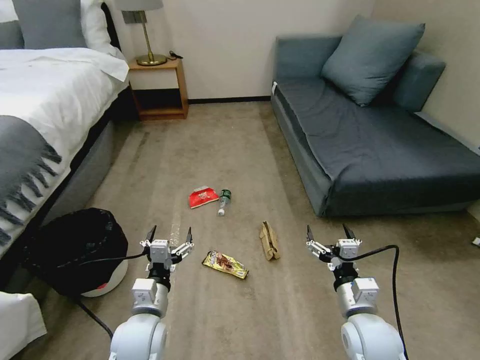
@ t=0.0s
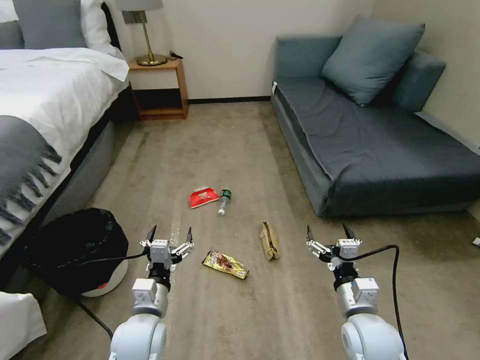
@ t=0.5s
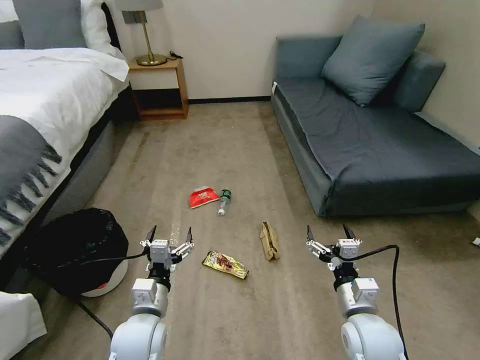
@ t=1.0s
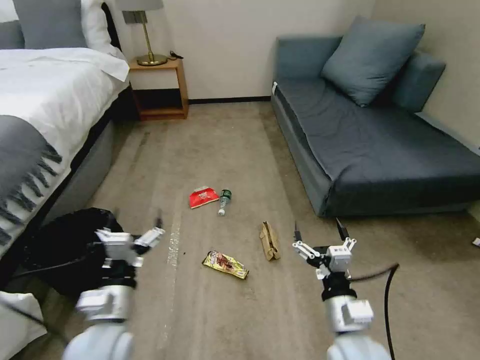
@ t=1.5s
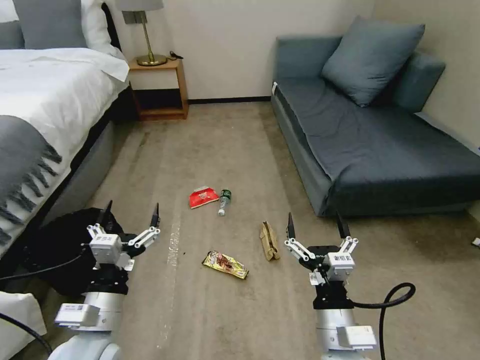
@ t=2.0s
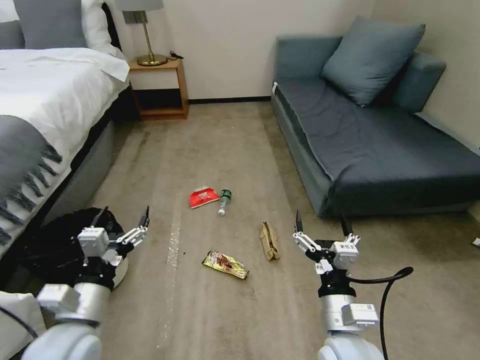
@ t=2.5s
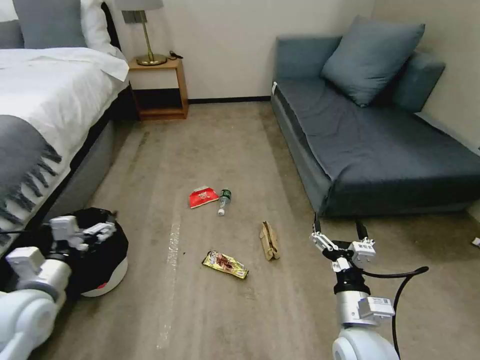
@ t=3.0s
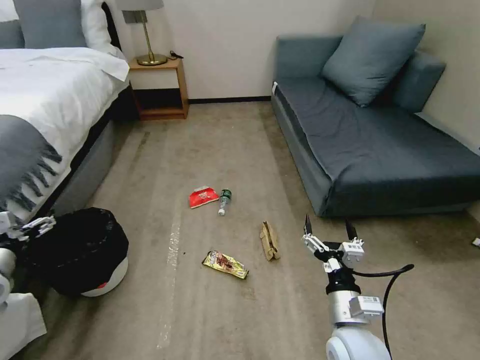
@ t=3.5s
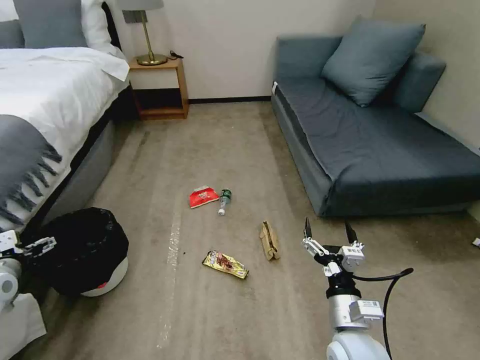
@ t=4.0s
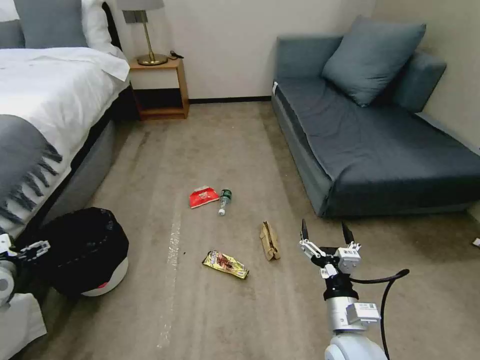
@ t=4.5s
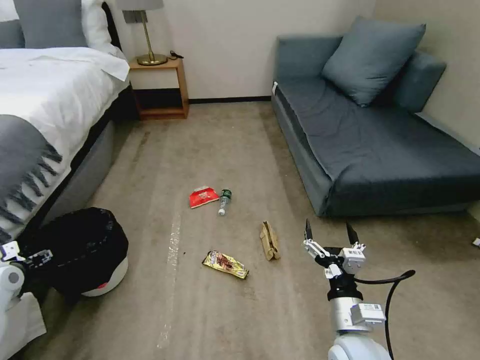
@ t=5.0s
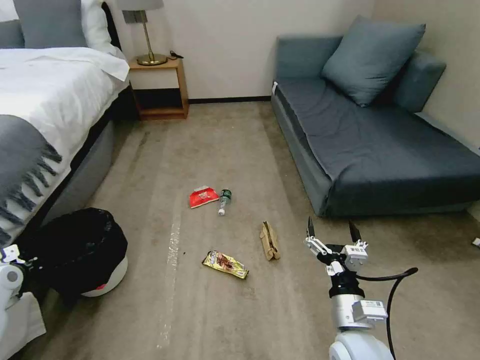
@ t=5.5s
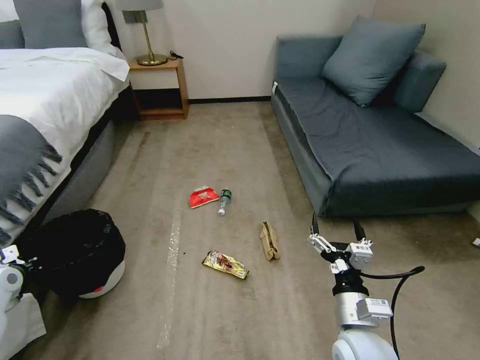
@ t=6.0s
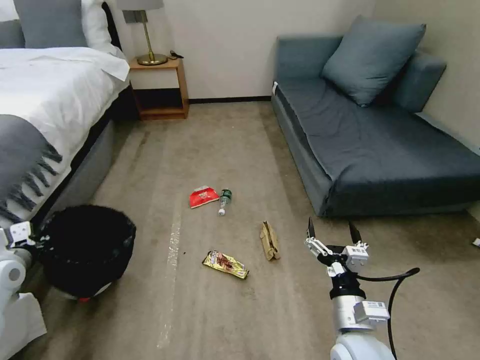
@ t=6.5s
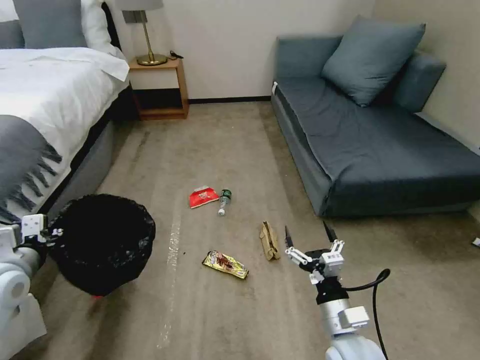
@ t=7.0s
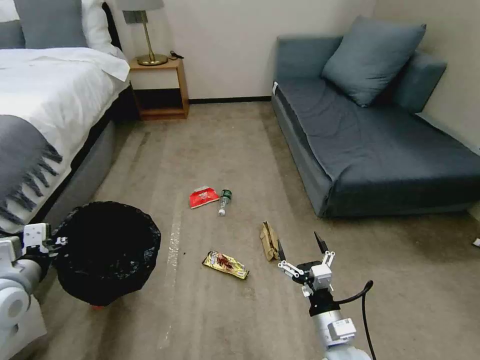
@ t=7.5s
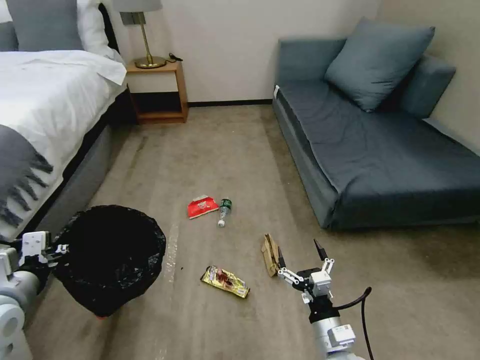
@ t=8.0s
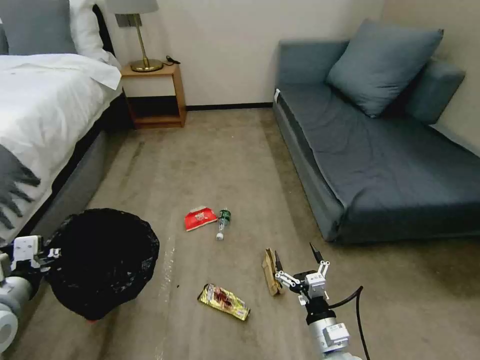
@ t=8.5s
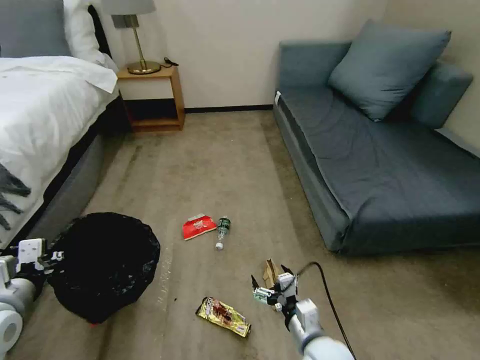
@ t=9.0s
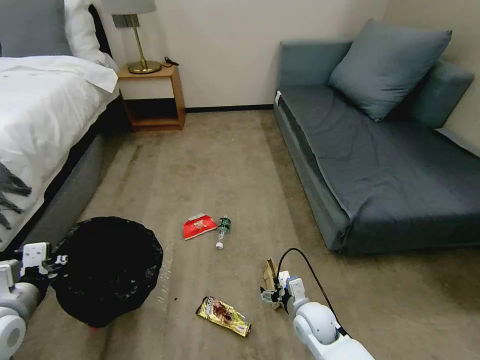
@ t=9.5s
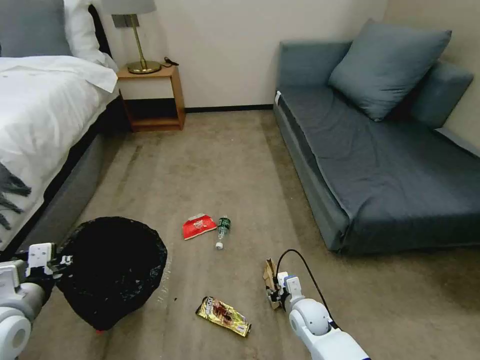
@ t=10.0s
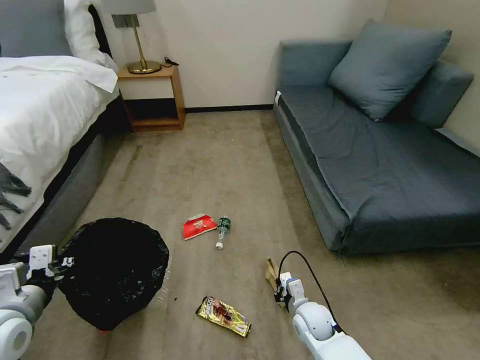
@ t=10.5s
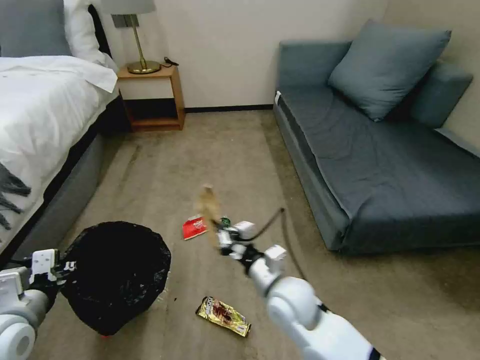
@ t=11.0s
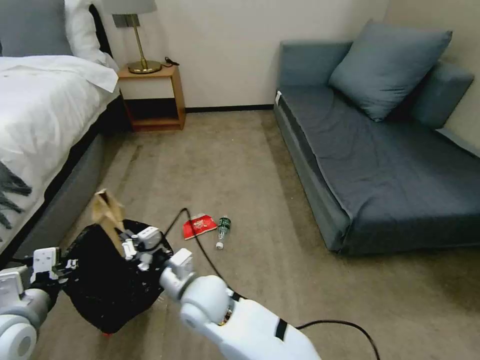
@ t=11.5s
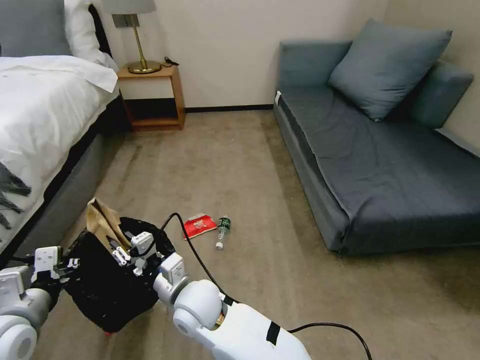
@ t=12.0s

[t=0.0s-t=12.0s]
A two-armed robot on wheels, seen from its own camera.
Task of the whole recording: Pick up the trash bin, then pick up the garbage on the floor and place it into the trash bin.
t=2.0s to t=4.0s: The right gripper moves approximately 5 cm; the left gripper travels to the left and forward by approximately 30 cm.
t=4.0s to t=6.0s: The left gripper closes.
t=6.0s to t=8.0s: The left gripper is displaced to the right, upward and backward by some 20 cm; the right gripper goes approximately 10 cm downward.
t=8.0s to t=10.0s: The right gripper moves forward and downward, some 15 cm, and closes up.
t=10.0s to t=12.0s: The right gripper shifts about 35 cm to the left and upward.

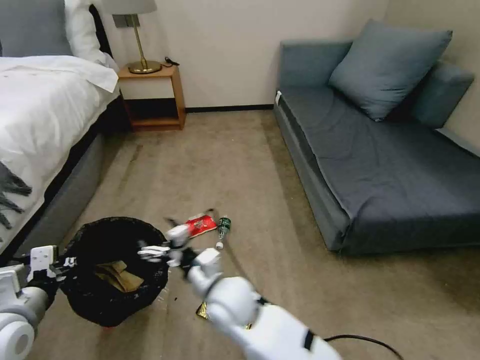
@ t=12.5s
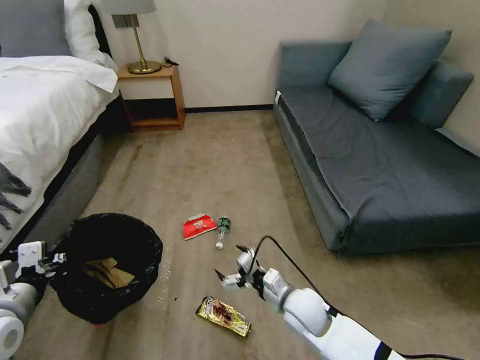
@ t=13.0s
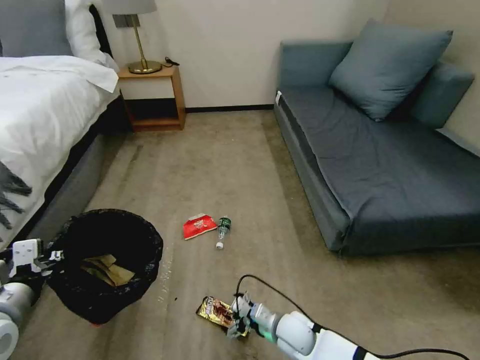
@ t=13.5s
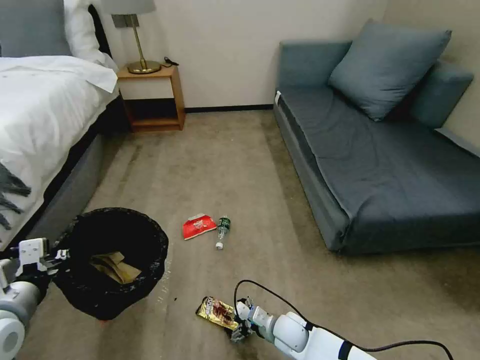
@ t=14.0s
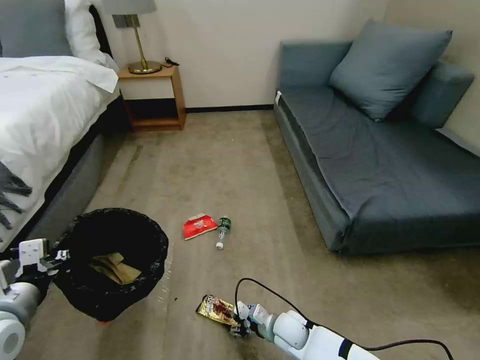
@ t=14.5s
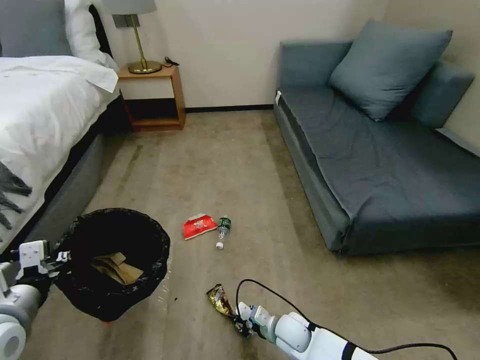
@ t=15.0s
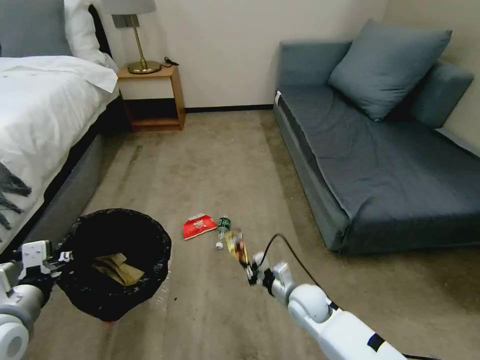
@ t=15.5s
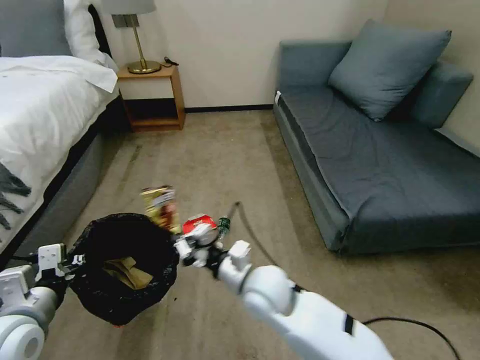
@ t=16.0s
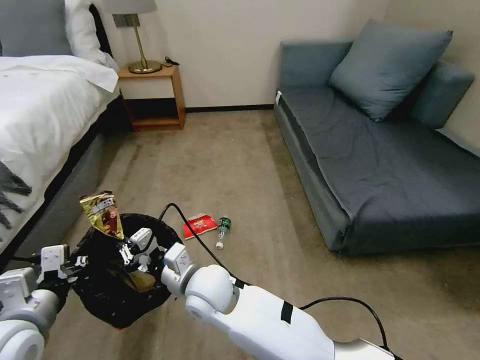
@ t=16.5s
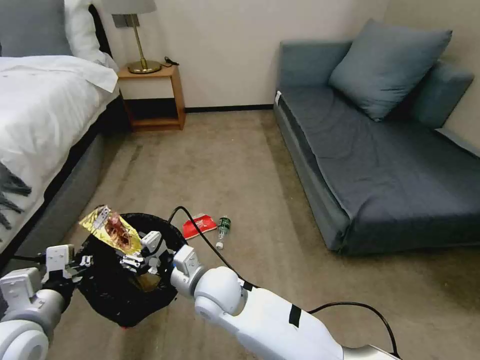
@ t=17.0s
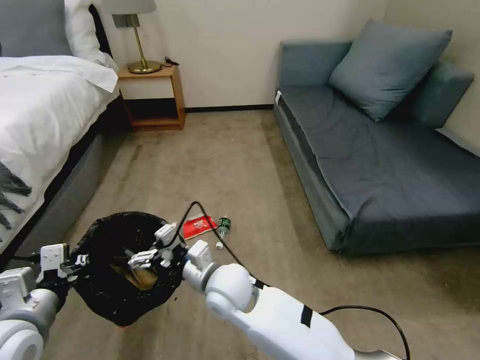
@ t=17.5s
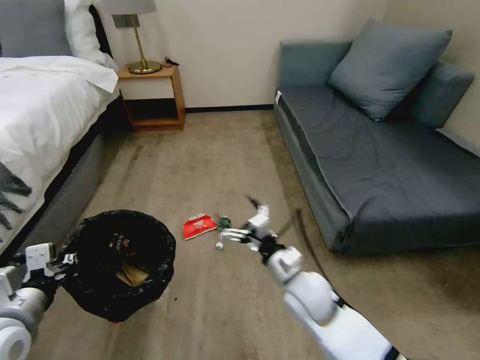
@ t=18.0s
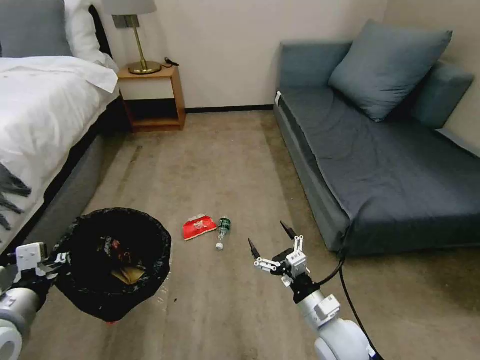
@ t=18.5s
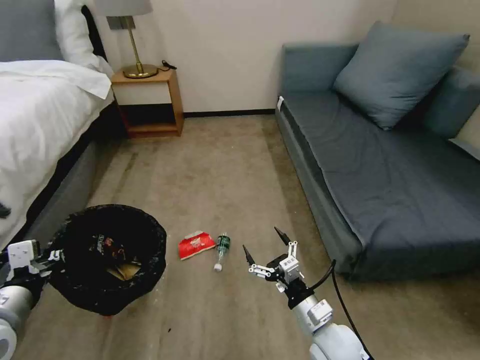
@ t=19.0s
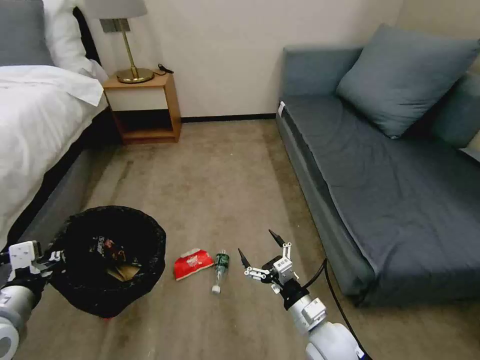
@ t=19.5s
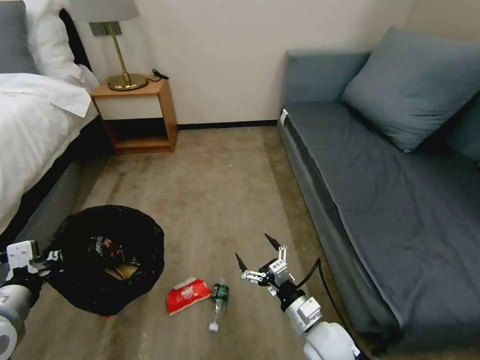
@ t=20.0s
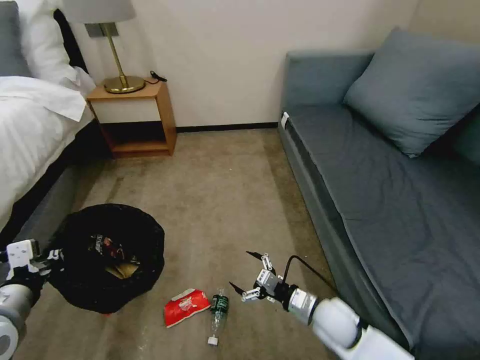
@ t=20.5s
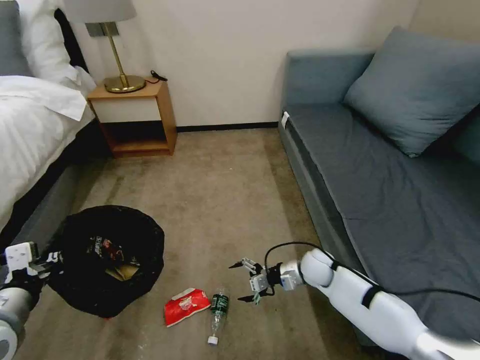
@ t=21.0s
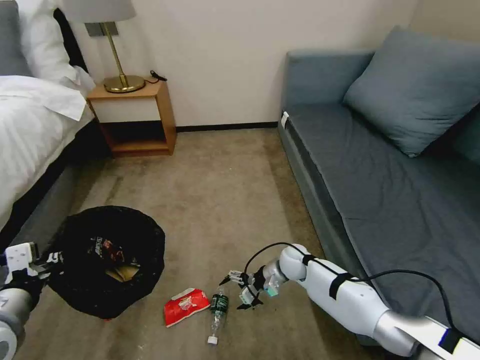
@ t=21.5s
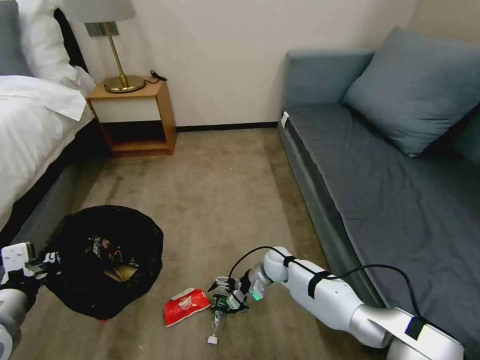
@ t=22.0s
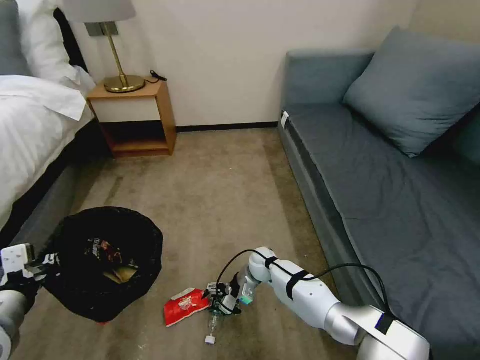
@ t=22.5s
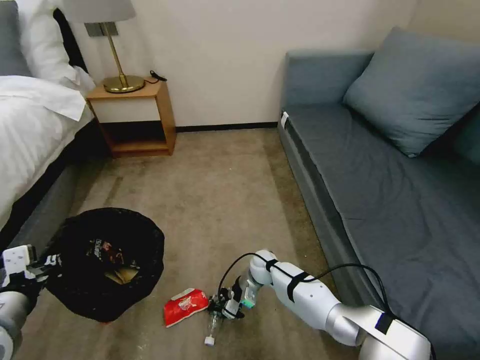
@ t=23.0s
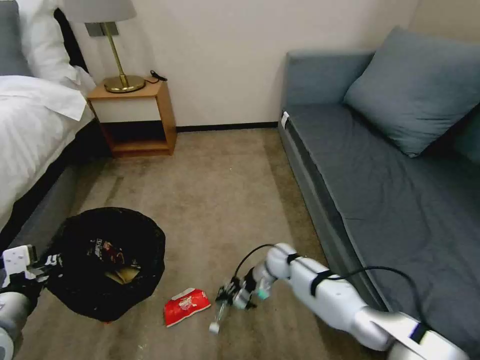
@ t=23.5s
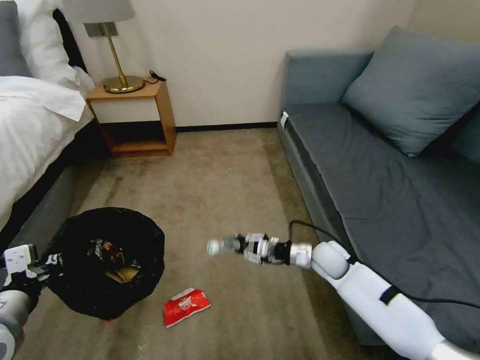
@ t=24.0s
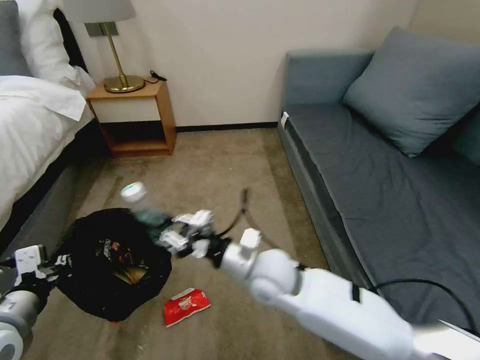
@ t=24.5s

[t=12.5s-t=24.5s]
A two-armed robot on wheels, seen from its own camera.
Task of the whole recording: Pick up the trash bin, then pick up the garbage on the floor and place it into the trash bin.
t=12.5s to t=14.5s: The right gripper moves downward and to the right, roughly 30 cm.
t=14.5s to t=16.5s: The right gripper moves upward and to the left, some 30 cm, and closes up.
t=16.5s to t=18.5s: The right gripper is displaced to the right by approximately 25 cm, and opens.
t=18.5s to t=20.5s: The right gripper shifts by some 5 cm.
t=20.5s to t=22.5s: The right gripper heads forward, to the left and downward, covering about 25 cm.
t=22.5s to t=24.5s: The right gripper moves upward and backward, some 25 cm, and closes.

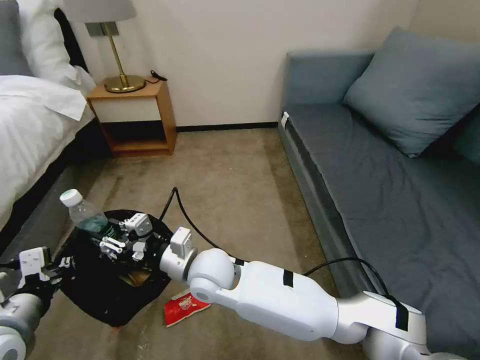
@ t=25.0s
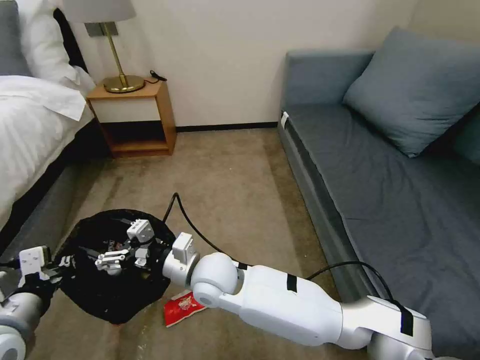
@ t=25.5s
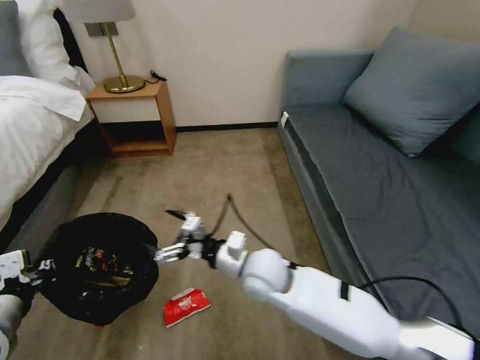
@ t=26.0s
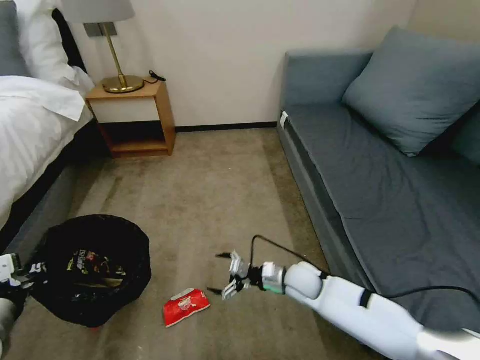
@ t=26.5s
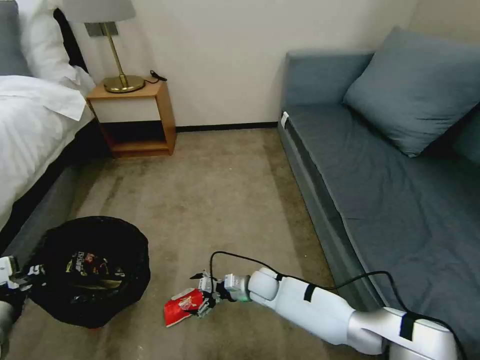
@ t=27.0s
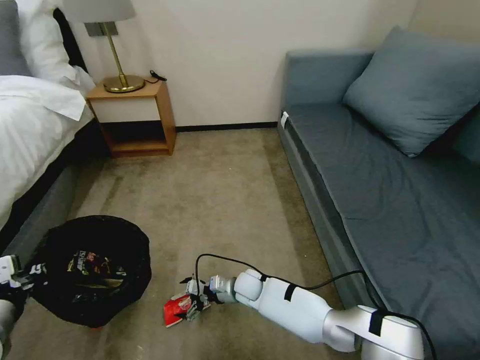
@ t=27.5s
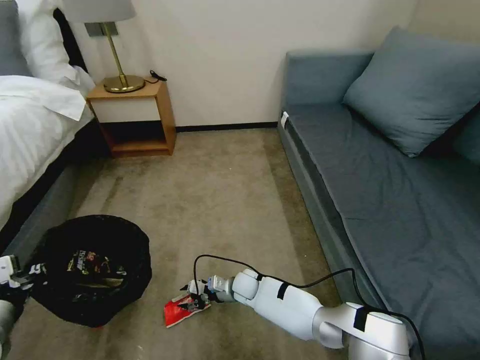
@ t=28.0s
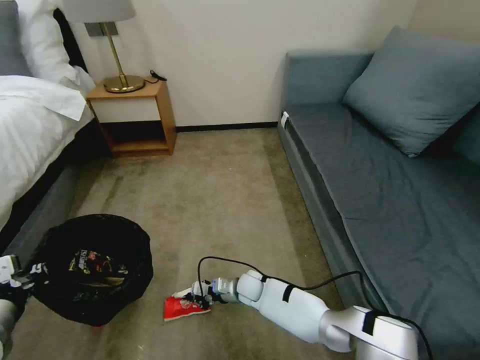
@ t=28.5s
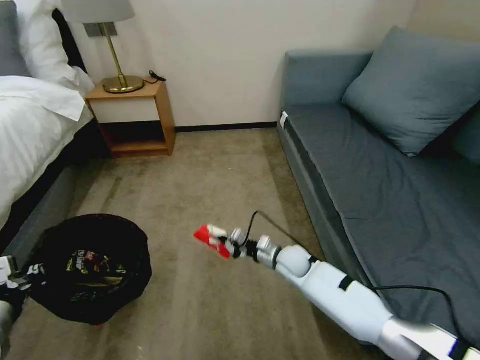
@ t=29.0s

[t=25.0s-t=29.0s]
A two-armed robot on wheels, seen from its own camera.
Task of the whole recording: Pick up the trash bin, then pick up the garbage on the floor and place it into the trash bin.
t=25.0s to t=27.0s: The right gripper is displaced downward and to the right by roughly 25 cm, and opens up. The left gripper moves some 5 cm.
t=27.0s to t=29.0s: The right gripper travels to the right and upward by about 10 cm, and closes its fingers.
